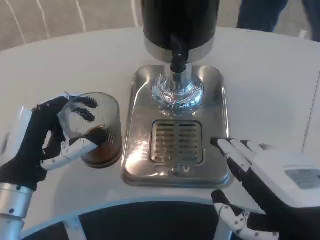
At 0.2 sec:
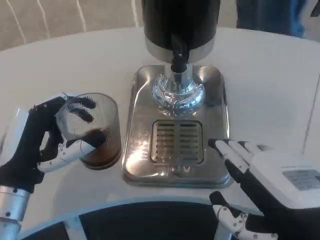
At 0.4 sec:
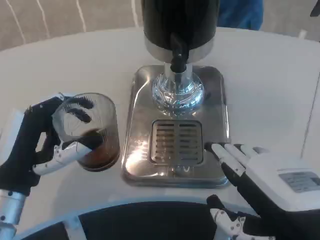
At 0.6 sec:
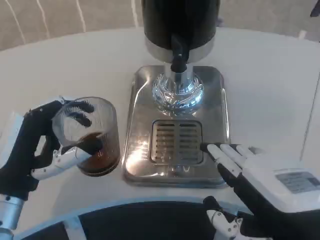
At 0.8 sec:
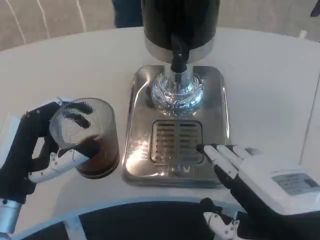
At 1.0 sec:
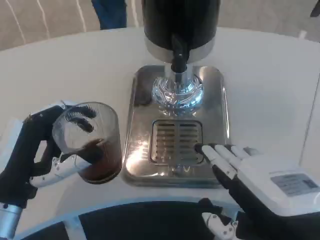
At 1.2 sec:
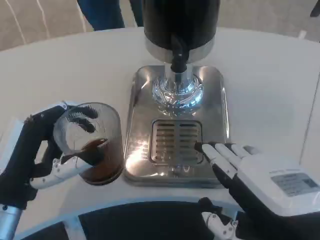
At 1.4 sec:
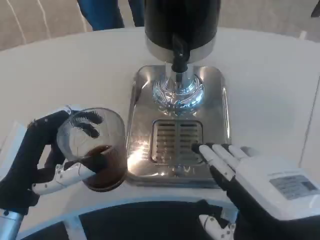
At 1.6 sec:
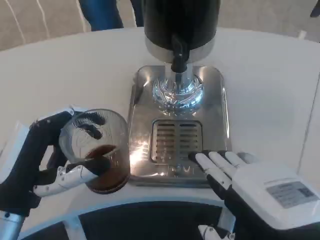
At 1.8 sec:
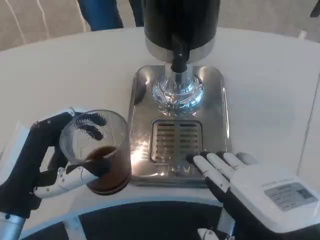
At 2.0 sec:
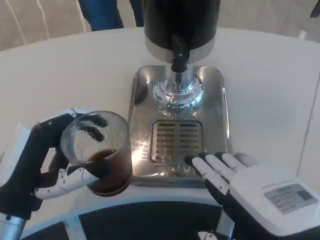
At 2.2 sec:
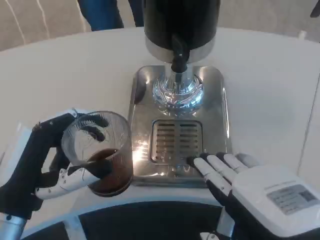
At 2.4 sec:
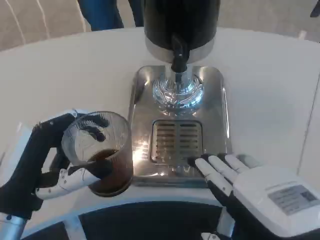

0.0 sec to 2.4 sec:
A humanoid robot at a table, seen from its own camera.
Task of the whole recording: Grasp the cup under the faucet to collect the drink, then remove the cup.
1.2 sec to 2.4 sec: There are only small adjustments of the hands.

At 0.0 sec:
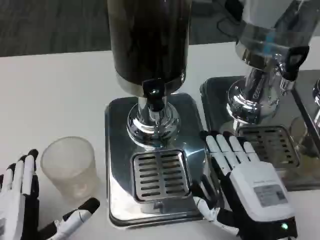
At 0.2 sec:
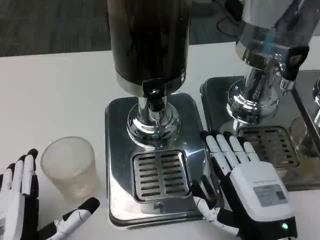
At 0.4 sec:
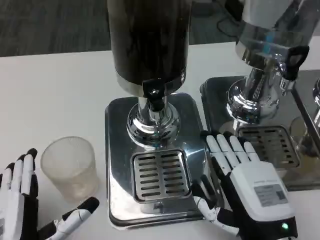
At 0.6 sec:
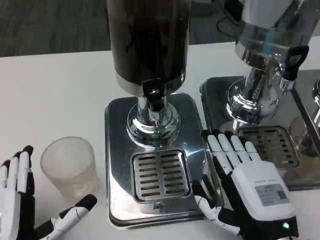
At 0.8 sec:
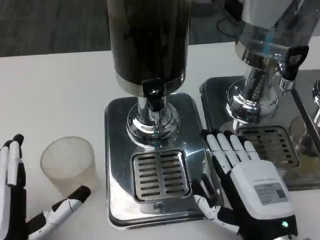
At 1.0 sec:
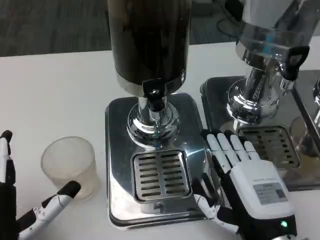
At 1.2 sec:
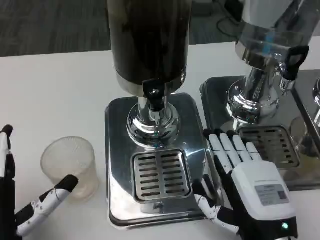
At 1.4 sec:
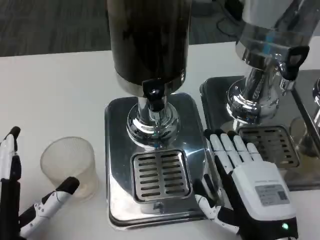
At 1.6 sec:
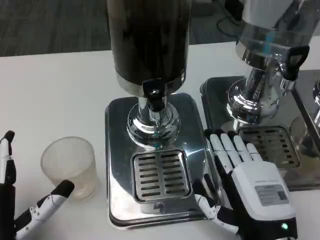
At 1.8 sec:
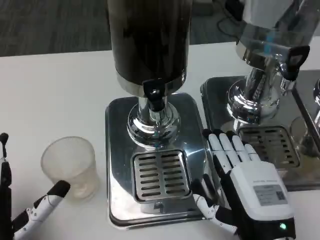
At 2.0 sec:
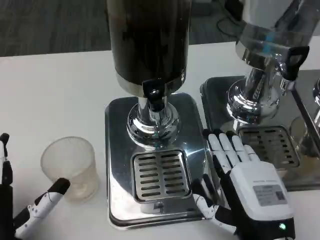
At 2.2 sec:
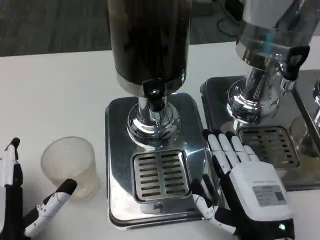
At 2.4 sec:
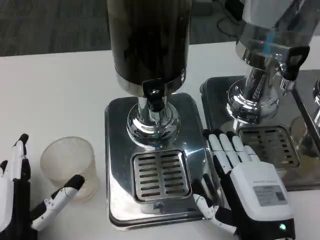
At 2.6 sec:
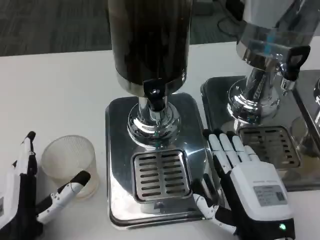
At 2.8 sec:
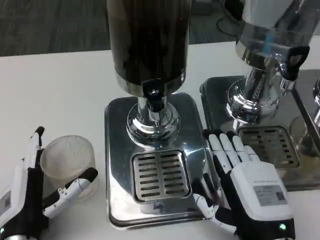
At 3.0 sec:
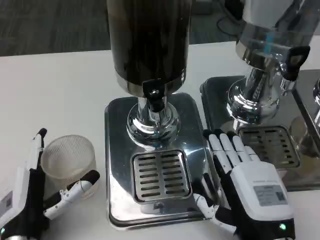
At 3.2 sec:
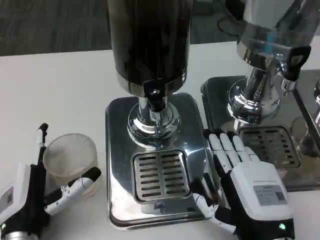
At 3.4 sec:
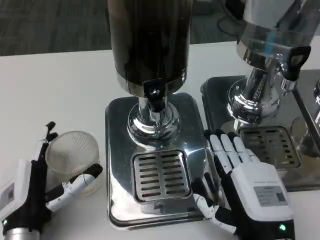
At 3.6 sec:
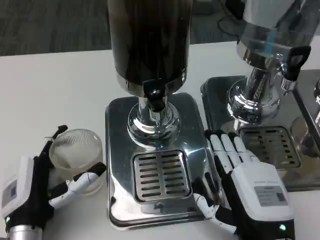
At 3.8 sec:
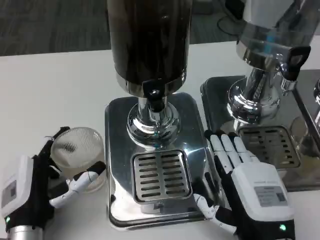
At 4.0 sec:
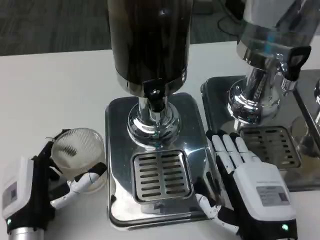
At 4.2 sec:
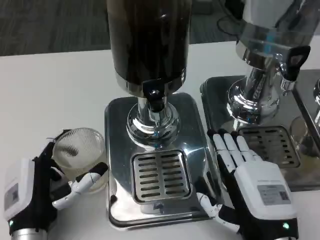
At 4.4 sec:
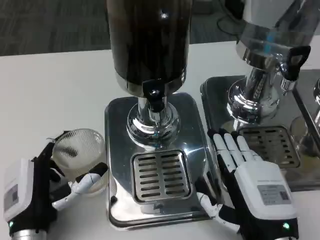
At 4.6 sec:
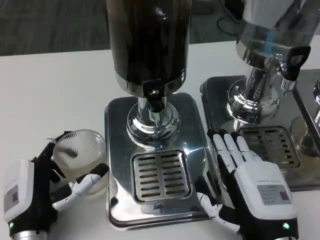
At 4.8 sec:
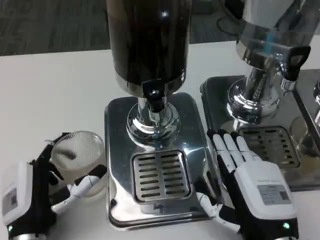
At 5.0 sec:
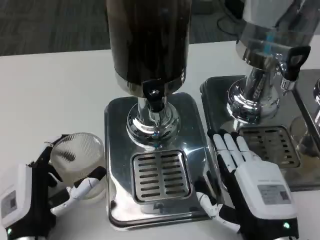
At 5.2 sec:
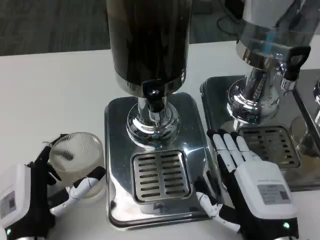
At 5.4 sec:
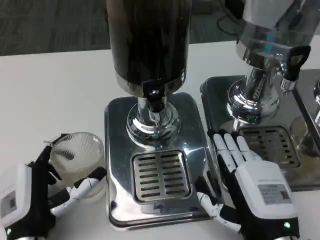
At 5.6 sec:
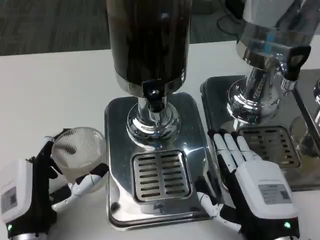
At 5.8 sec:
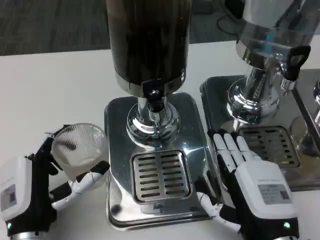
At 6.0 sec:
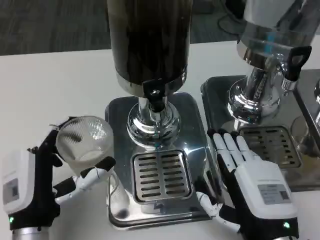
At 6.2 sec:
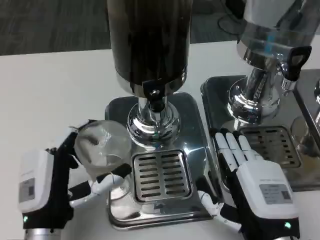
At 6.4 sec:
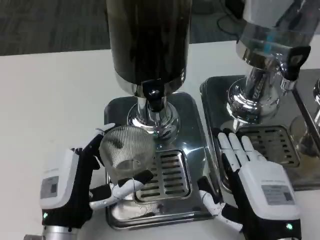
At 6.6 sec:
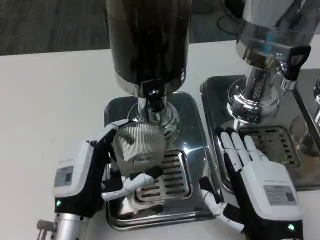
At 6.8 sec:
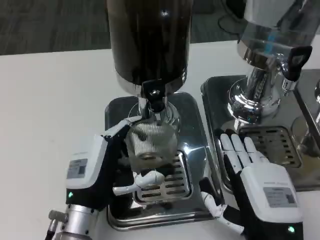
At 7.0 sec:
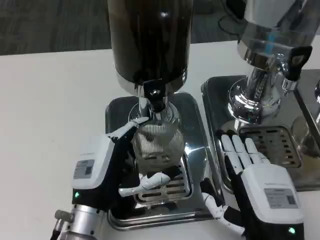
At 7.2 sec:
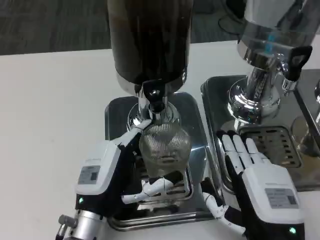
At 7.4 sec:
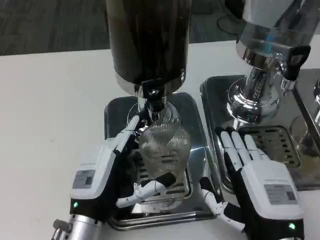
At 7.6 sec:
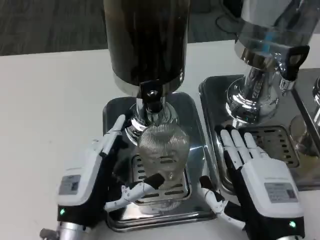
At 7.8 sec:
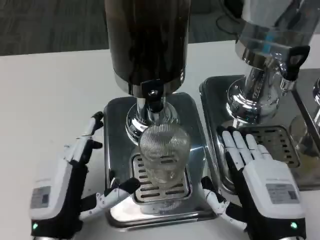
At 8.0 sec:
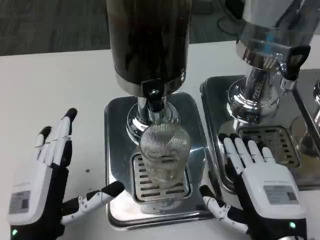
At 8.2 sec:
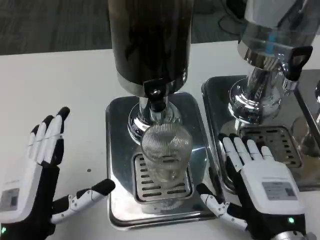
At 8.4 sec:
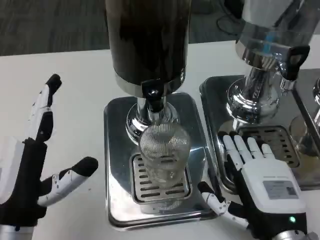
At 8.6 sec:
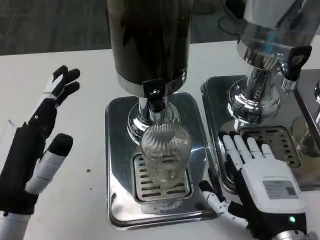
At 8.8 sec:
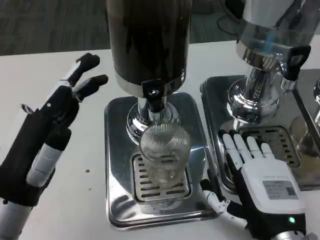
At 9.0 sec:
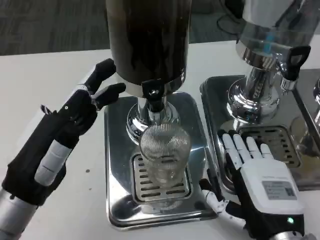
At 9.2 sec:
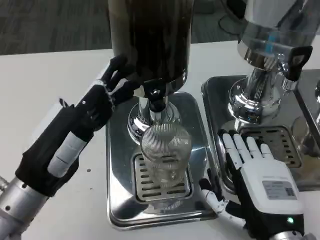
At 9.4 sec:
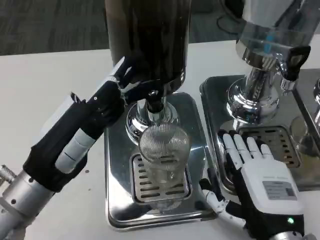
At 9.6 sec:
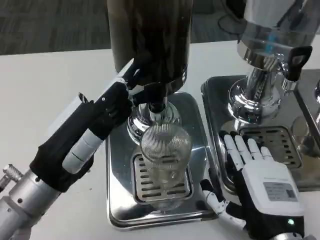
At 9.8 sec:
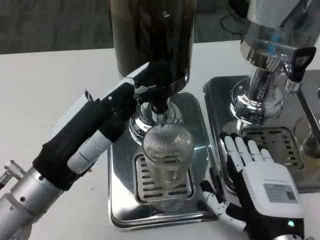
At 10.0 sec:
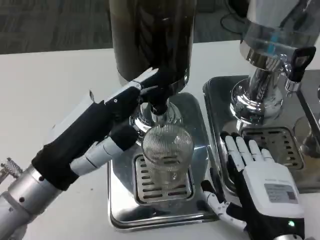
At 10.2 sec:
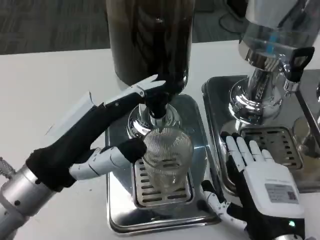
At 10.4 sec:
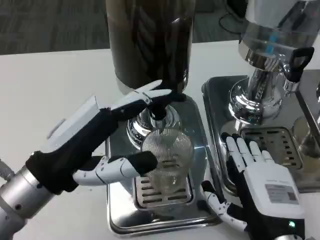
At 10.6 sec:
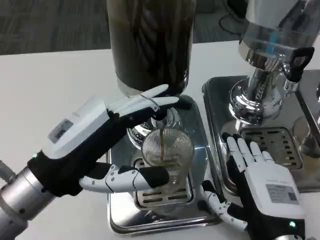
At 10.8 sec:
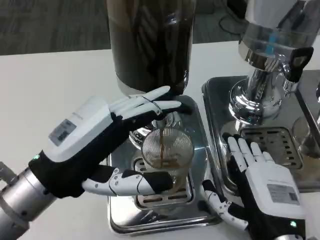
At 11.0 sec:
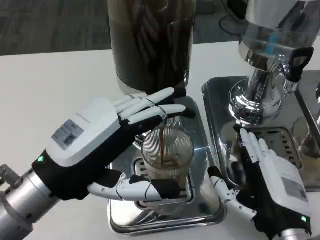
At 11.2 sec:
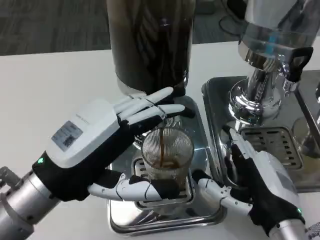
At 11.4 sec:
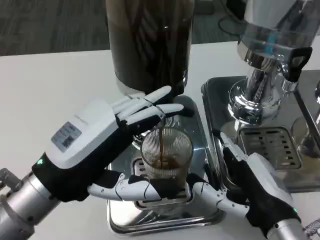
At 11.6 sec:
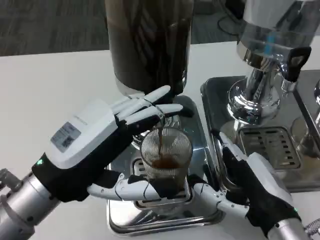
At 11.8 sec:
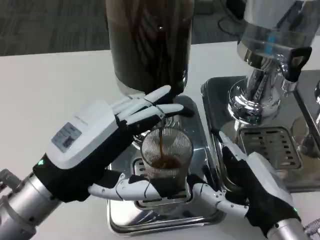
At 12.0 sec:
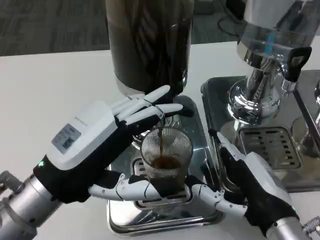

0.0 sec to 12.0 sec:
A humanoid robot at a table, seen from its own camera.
Task of the whole recording: Grasp the cup under the faucet to collect the drink, then remove the cup.
0.0 sec to 1.6 sec: The hands move only a little.
1.6 sec to 3.0 sec: The left hand shifts roughly 5 cm forward.
3.0 sec to 4.4 sec: There are only small adjustments of the hands.
4.4 sec to 6.0 sec: The hands stay close to where they were, moving slightly.
7.6 sec to 9.0 sec: The left hand moves upward and to the left, some 10 cm.

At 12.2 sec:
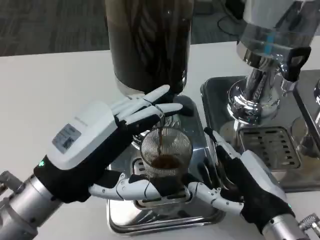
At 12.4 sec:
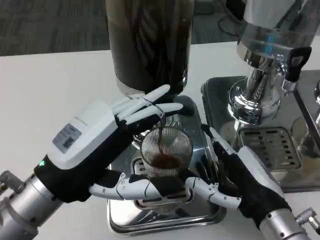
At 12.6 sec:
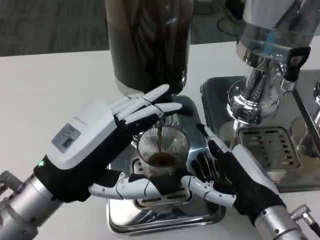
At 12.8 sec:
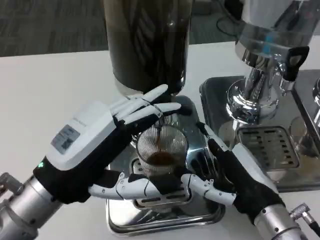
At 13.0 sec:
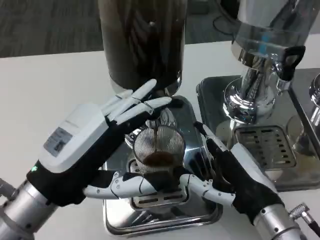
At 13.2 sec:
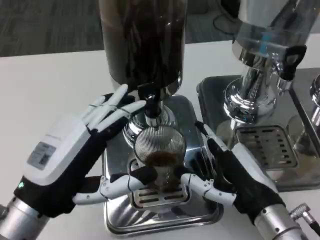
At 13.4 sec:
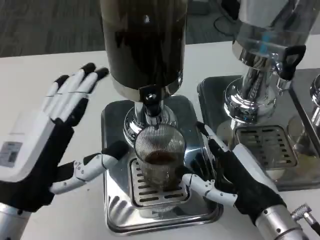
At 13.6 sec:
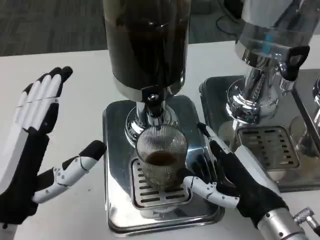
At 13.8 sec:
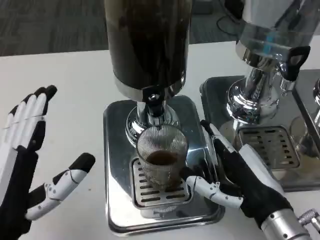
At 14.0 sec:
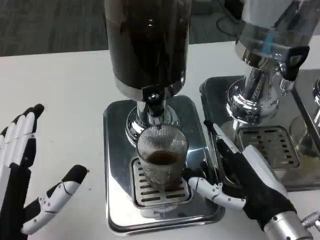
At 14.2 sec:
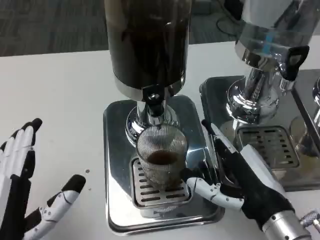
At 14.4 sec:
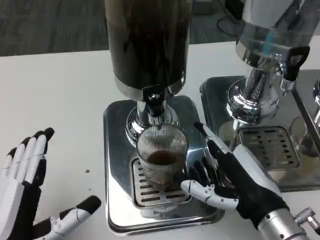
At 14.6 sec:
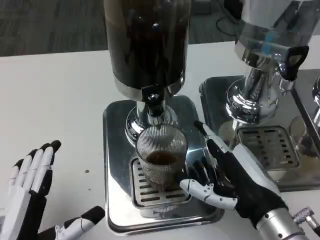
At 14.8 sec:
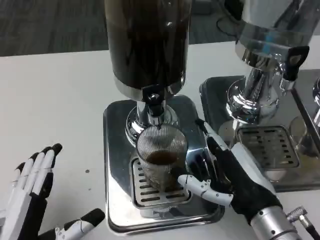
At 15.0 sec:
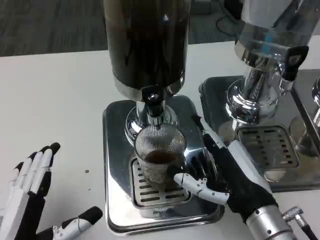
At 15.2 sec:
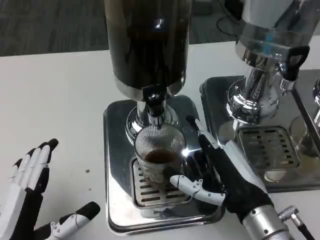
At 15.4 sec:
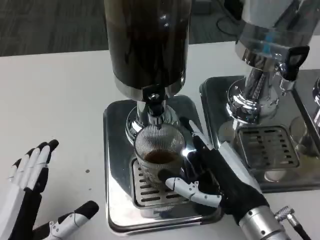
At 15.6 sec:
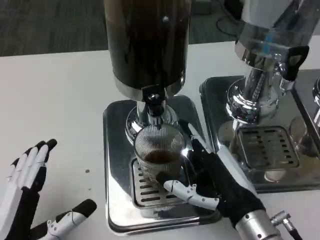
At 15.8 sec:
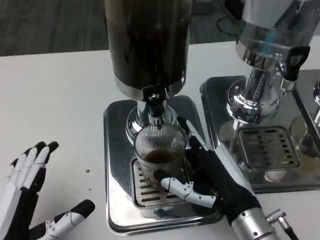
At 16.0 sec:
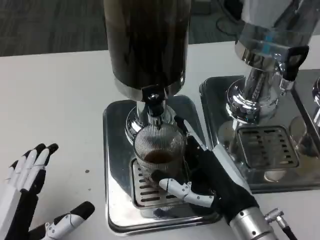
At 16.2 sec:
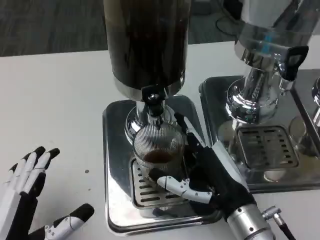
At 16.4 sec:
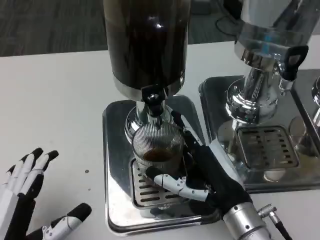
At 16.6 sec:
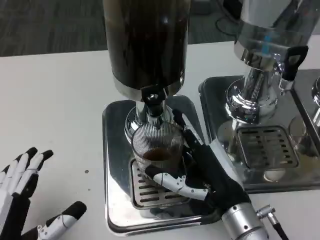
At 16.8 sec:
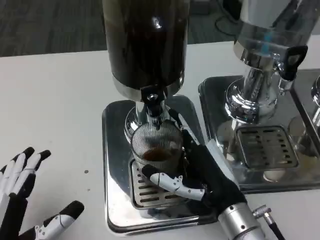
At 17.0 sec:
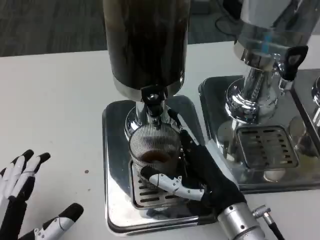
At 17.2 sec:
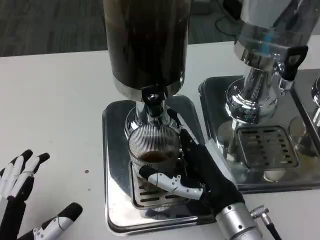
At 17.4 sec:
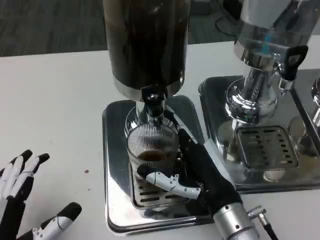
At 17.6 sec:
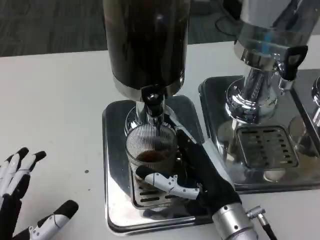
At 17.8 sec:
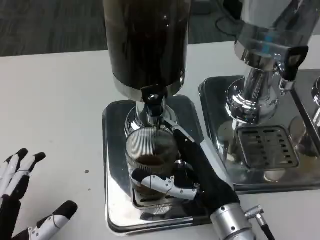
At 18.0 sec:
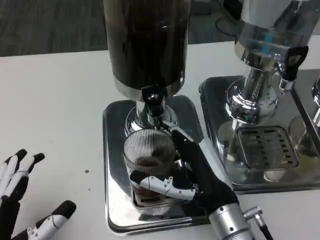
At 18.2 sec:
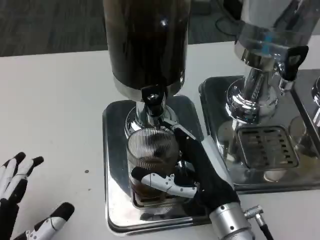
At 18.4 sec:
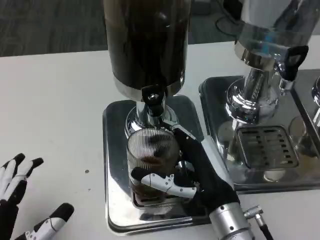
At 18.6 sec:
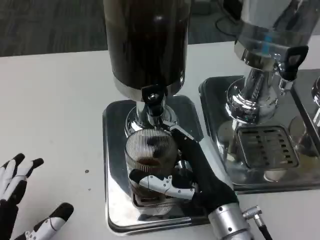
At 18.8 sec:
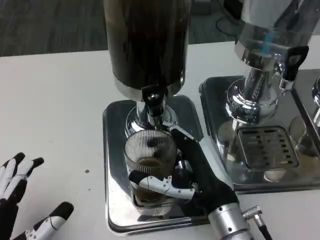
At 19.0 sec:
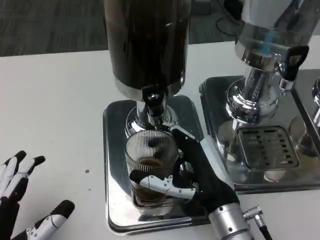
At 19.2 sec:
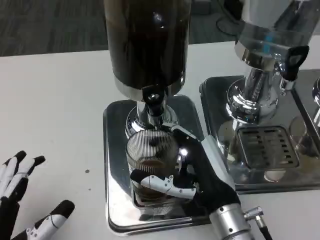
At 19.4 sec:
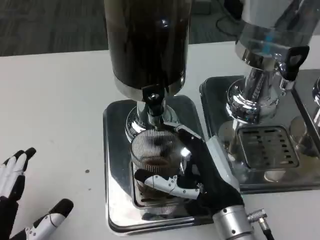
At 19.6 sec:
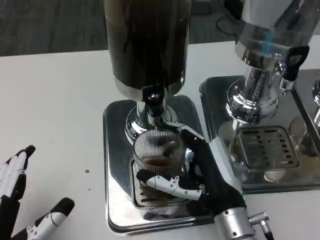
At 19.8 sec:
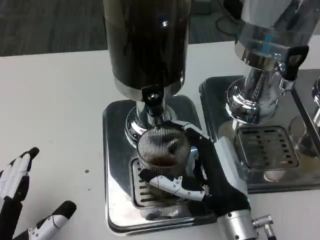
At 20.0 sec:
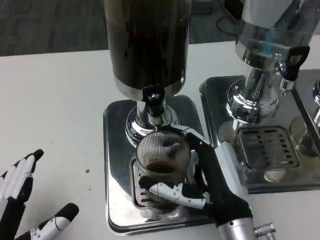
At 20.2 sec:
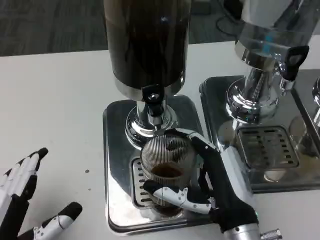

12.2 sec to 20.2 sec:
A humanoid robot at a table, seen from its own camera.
Task of the whole recording: Grasp the cup under the faucet to collect the drink, then remove the cup.
12.2 sec to 13.8 sec: The left hand is displaced backward by roughly 5 cm.
17.0 sec to 20.2 sec: There are only small adjustments of the hands.
